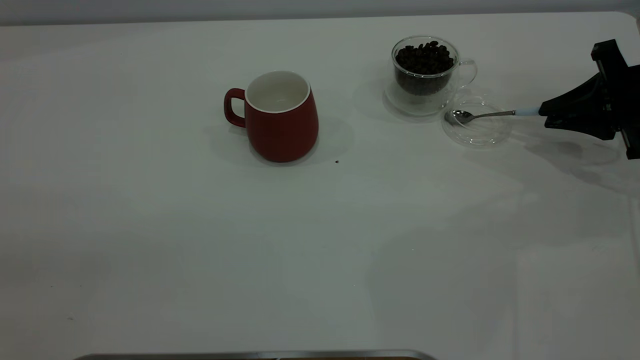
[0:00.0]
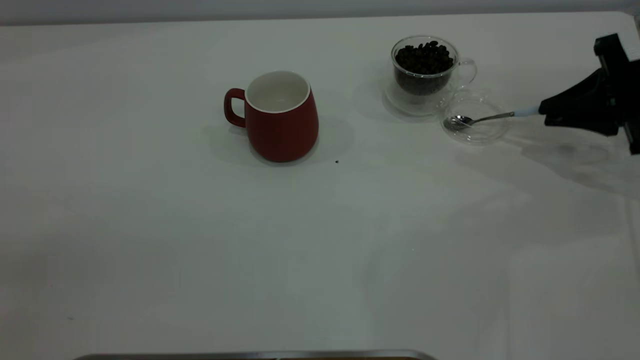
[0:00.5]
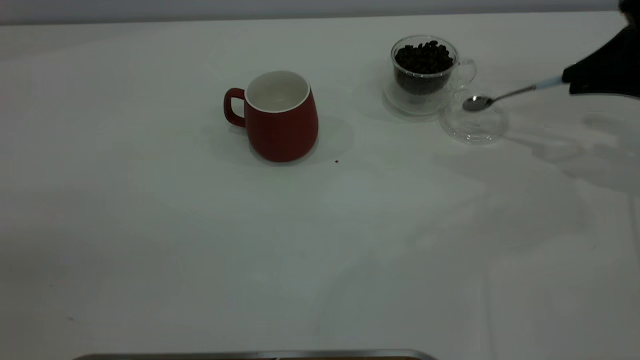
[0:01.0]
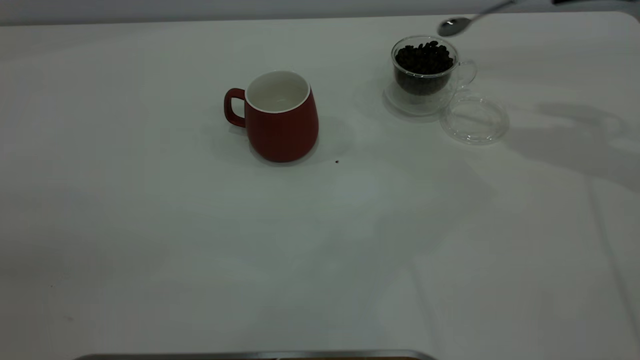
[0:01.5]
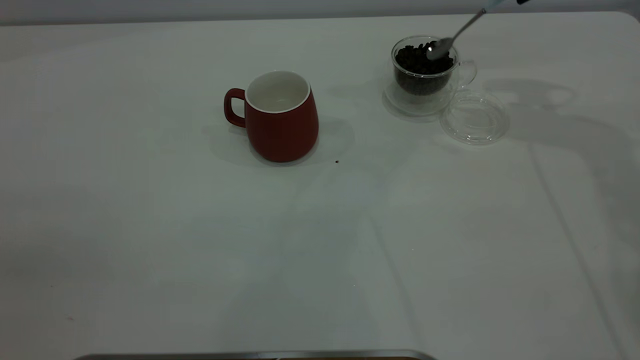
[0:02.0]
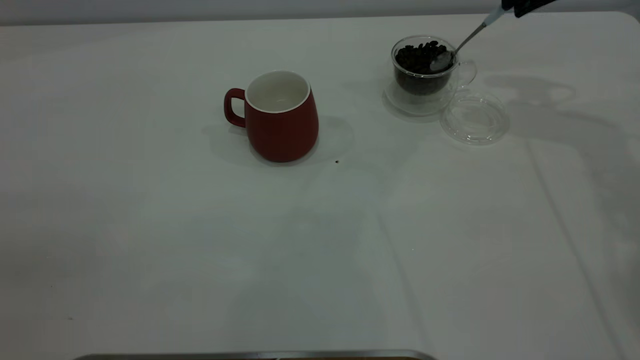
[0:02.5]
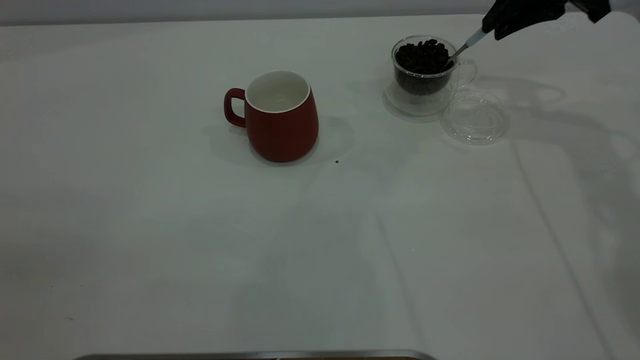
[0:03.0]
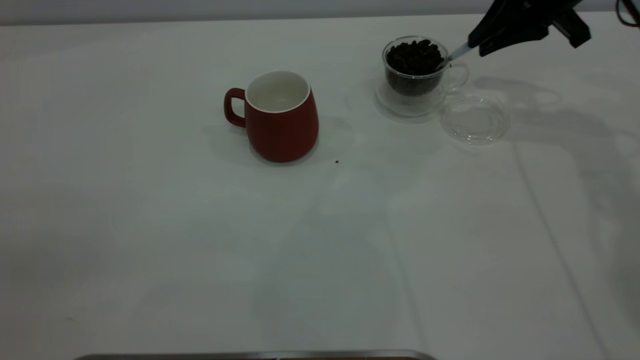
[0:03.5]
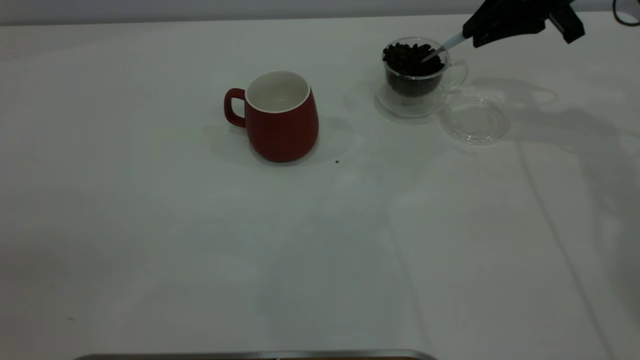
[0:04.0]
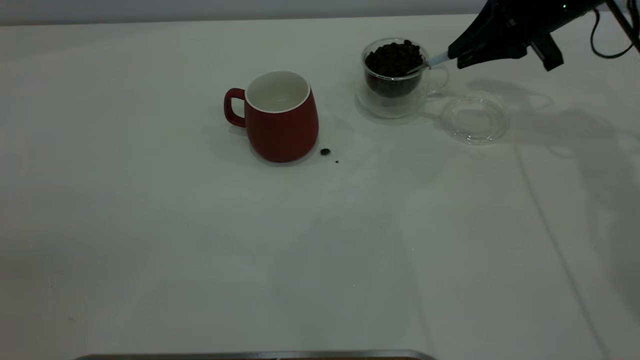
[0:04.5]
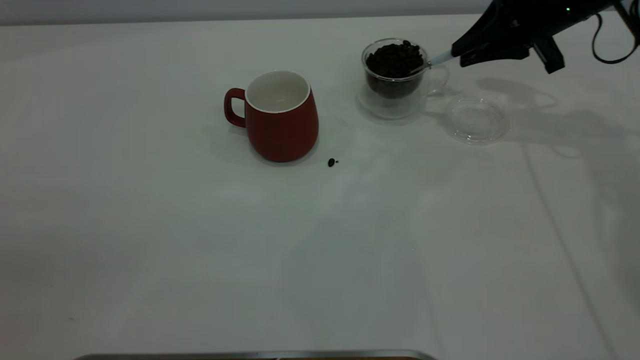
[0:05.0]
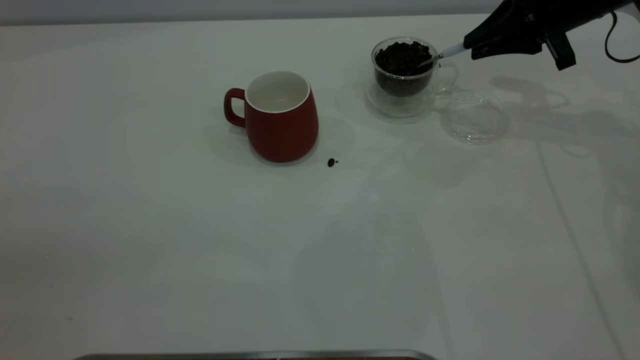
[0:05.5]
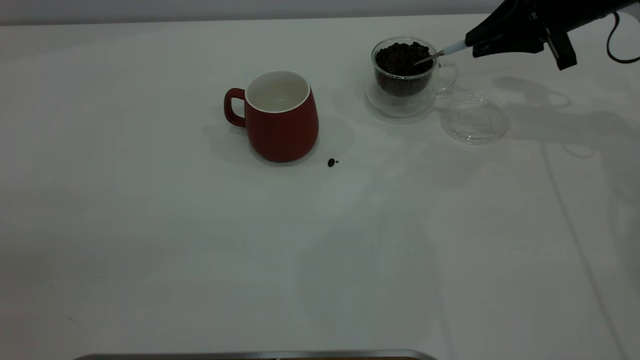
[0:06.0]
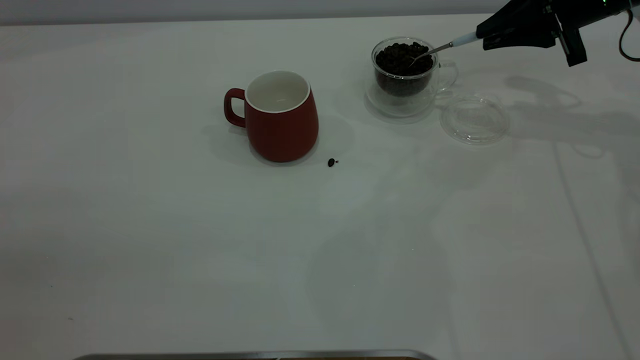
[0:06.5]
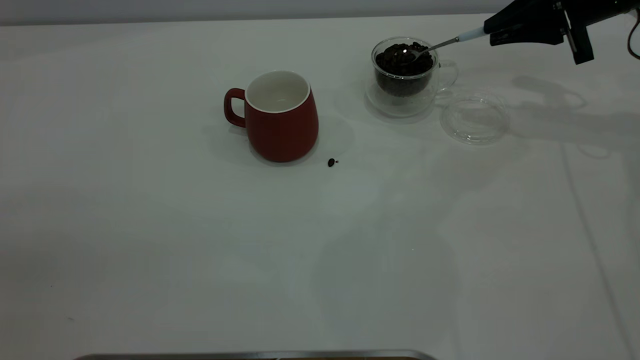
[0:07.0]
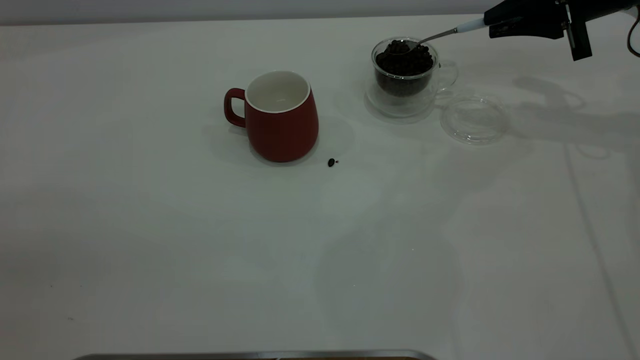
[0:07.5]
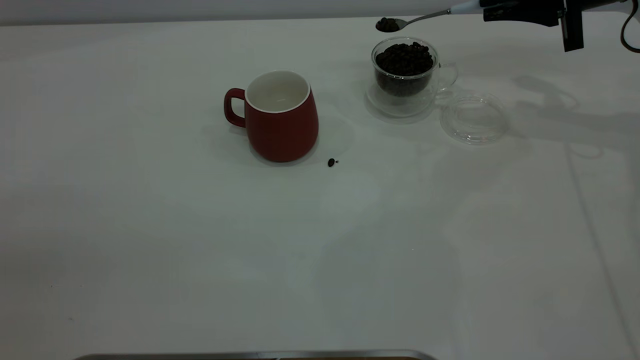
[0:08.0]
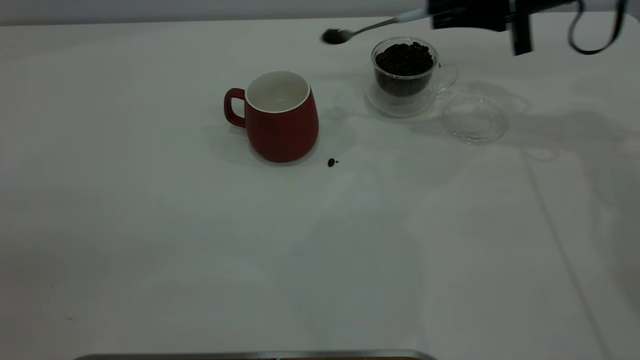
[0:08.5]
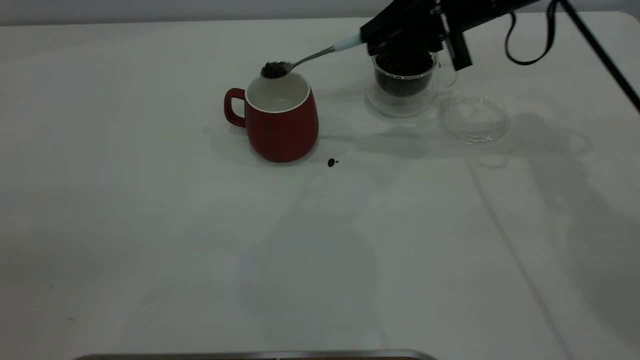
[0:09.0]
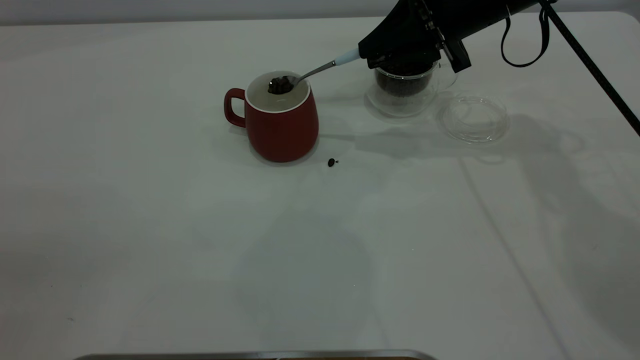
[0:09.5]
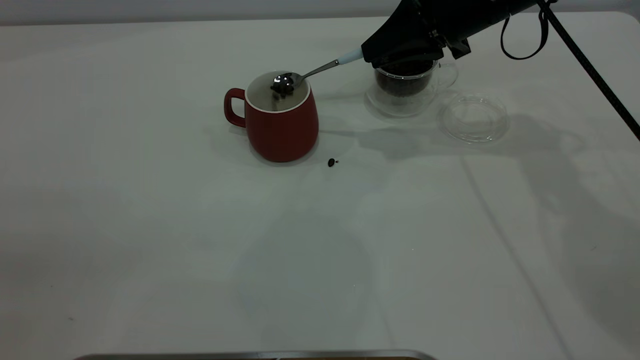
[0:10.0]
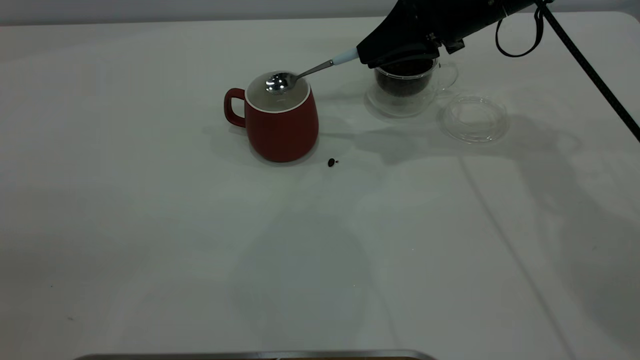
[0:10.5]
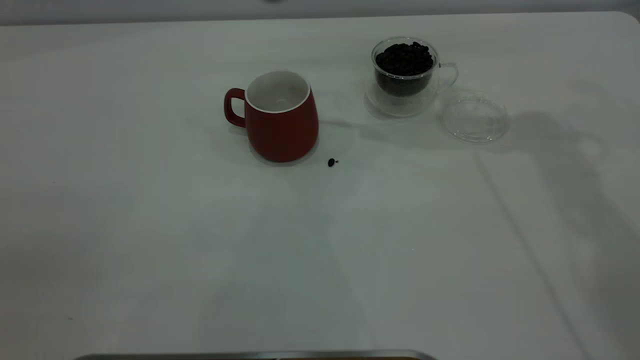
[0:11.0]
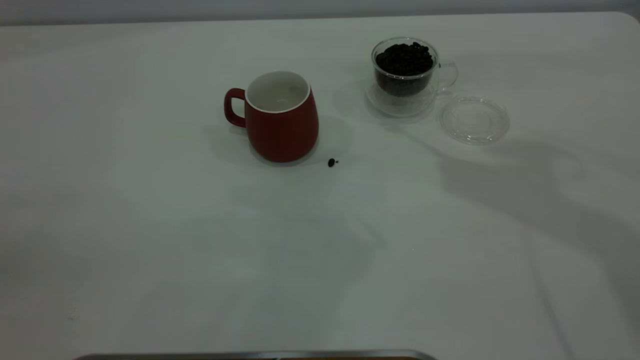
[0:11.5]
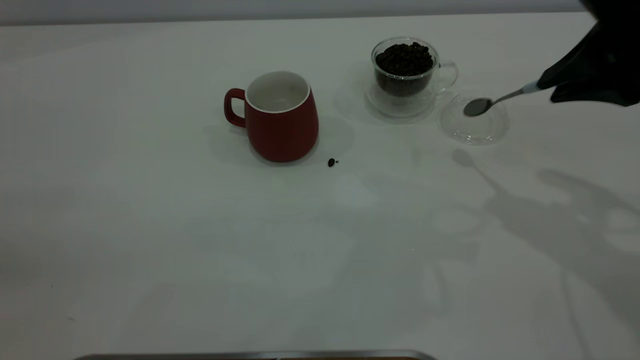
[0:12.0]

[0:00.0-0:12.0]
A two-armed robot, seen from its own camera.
Task of the whole recording: the left gripper place the red cup in the center of the table, the right gripper take the blue spoon from the cup lid and scoop out the coffee beans from the coffee cup and put them into the red cup, the right gripper put the spoon back into the cup lid.
Step, 0:01.5 to 0:10.5: Scoop a spoonful of beans into the cup.
0:00.0 to 0:02.0: The right gripper is displaced upward, forward and to the left by approximately 20 cm.
0:02.0 to 0:04.0: The right gripper is displaced downward by about 5 cm.
0:04.0 to 0:06.0: The grippers make only small movements.
0:06.0 to 0:08.0: The grippers move only a little.
0:08.0 to 0:10.0: The right gripper shifts some 15 cm to the left.
0:10.0 to 0:12.0: The right gripper is displaced backward by roughly 15 cm.

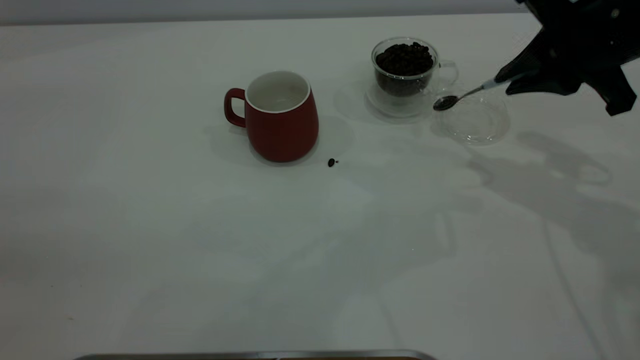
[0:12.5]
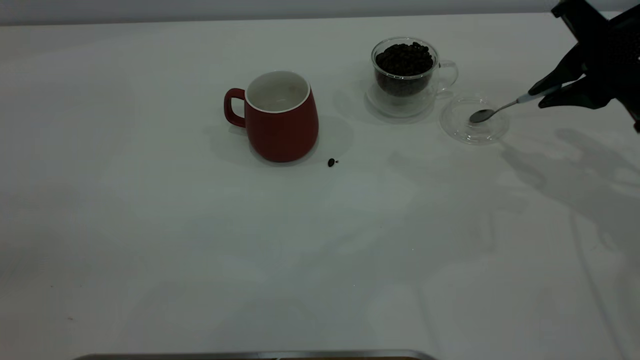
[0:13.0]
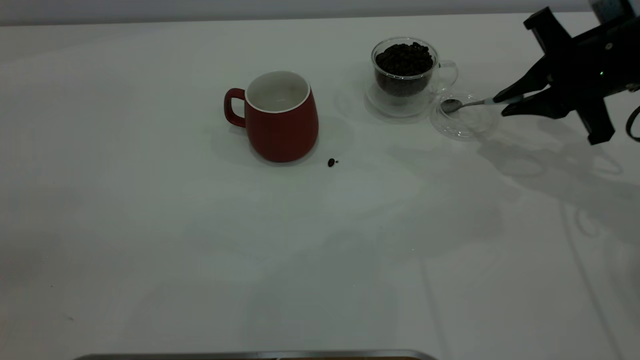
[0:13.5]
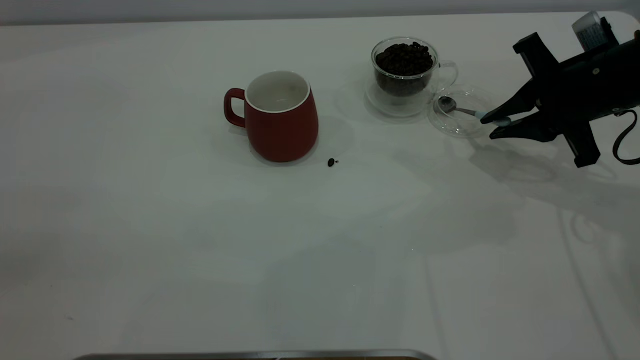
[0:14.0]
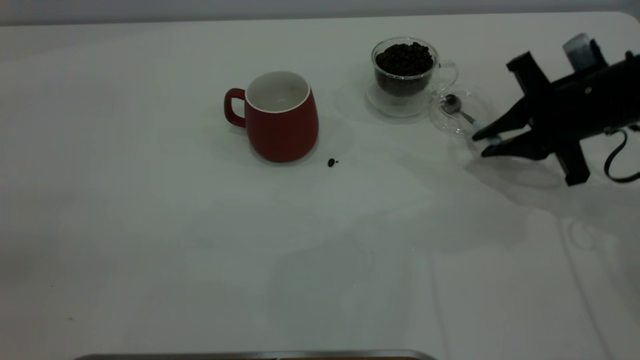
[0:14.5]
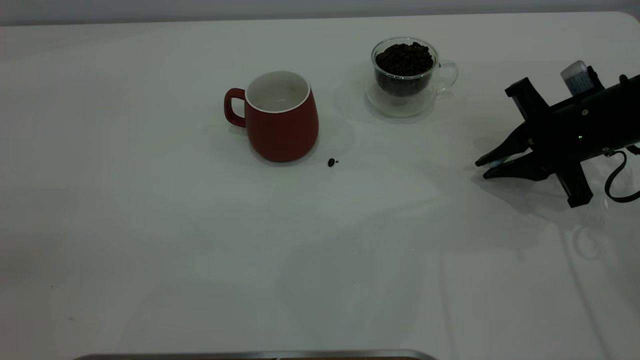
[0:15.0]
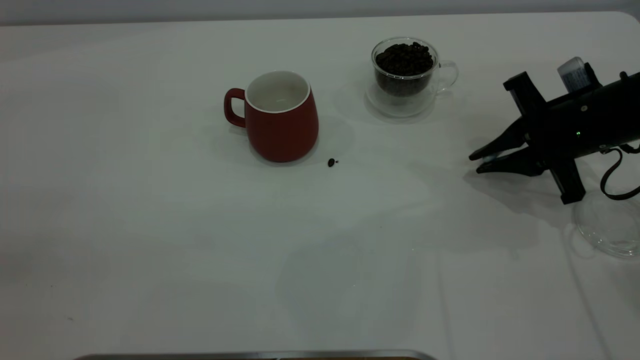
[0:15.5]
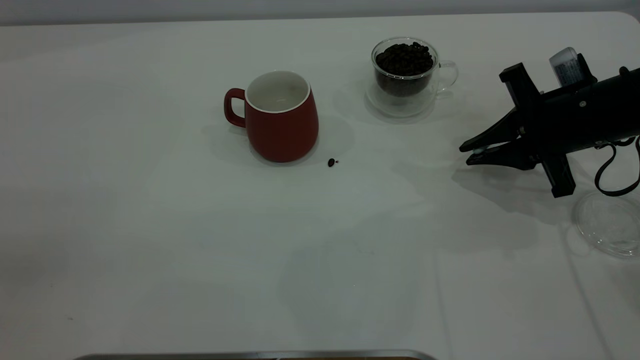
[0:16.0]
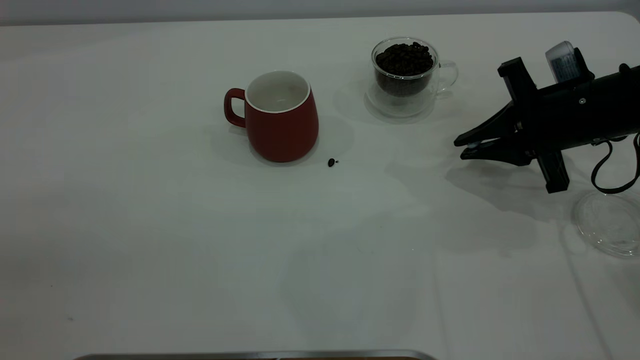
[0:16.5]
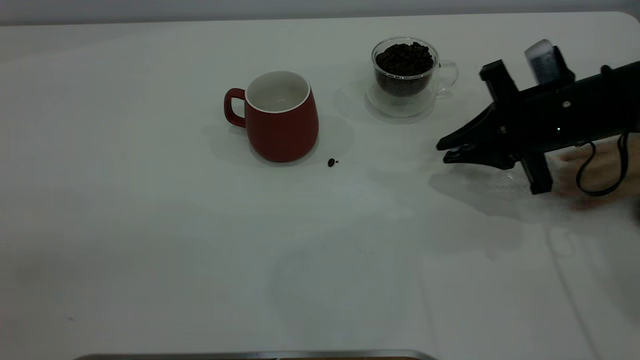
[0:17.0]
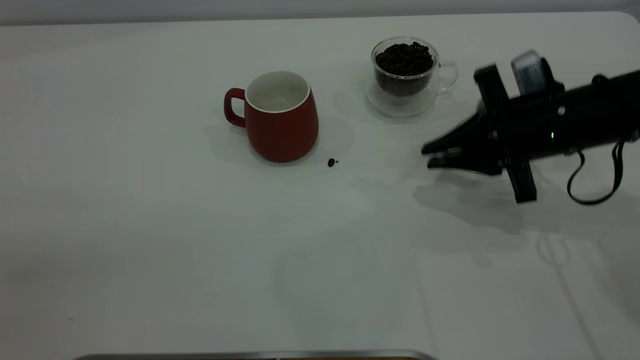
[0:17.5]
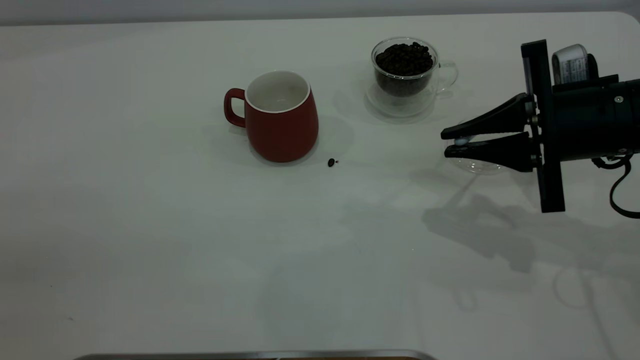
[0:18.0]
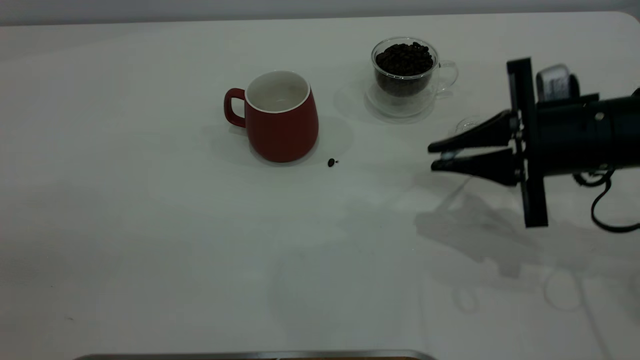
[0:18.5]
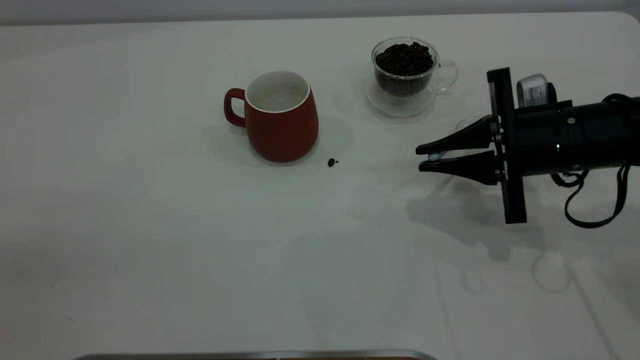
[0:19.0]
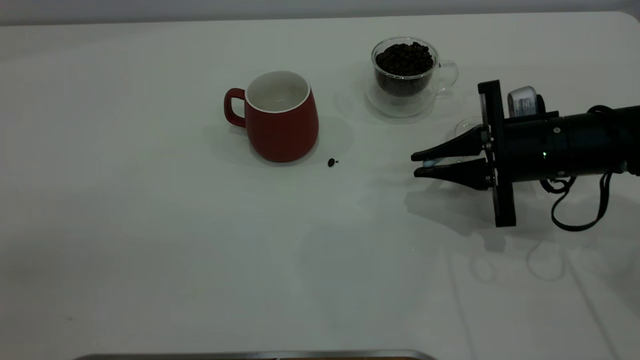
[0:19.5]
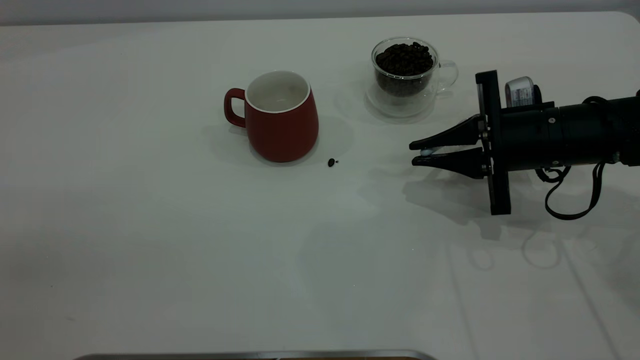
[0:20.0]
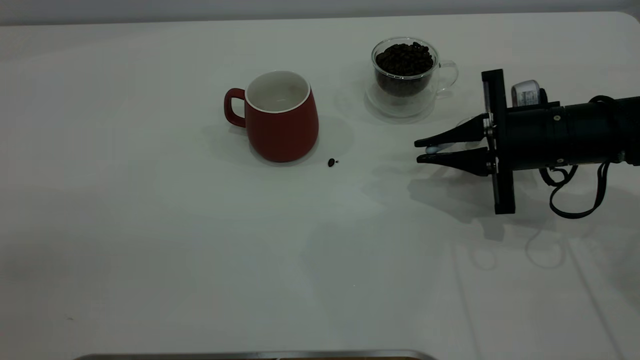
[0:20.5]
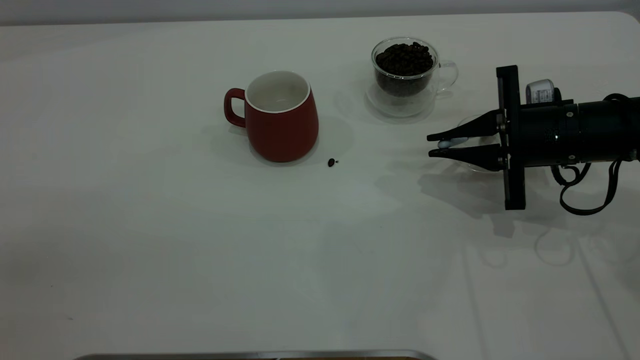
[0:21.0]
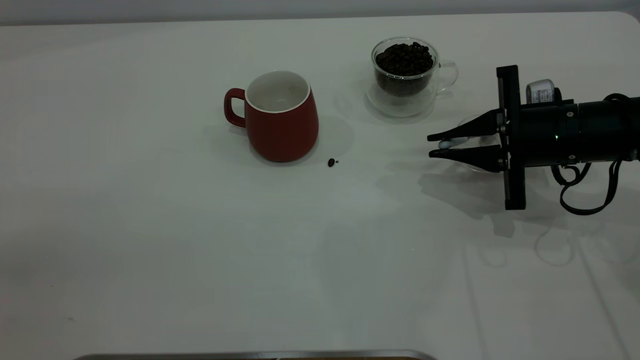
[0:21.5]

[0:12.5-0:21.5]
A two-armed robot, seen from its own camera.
Task of the whole recording: the left gripper place the red cup in the center of the table, the right gripper take the blue spoon from the cup lid and scoop out the coffee beans from the coffee cup and put them into the red cup, the right gripper put the spoon back into the cup lid.
0:12.5 to 0:14.5: The right gripper travels downward by approximately 10 cm.
0:14.5 to 0:17.0: The grippers move only a little.
0:19.5 to 0:21.5: The grippers move only a little.
